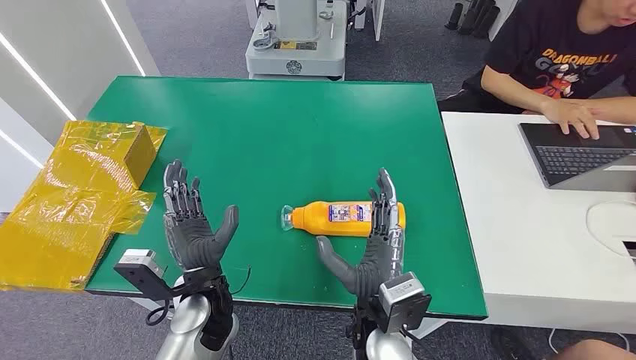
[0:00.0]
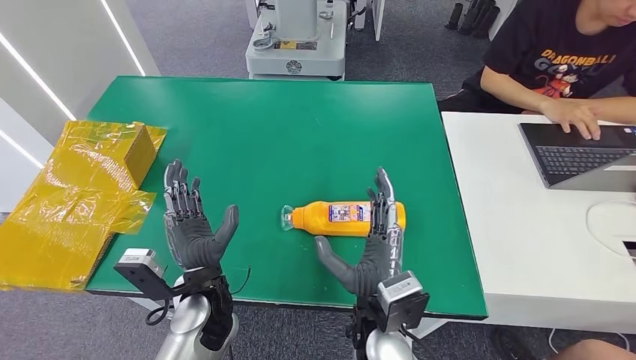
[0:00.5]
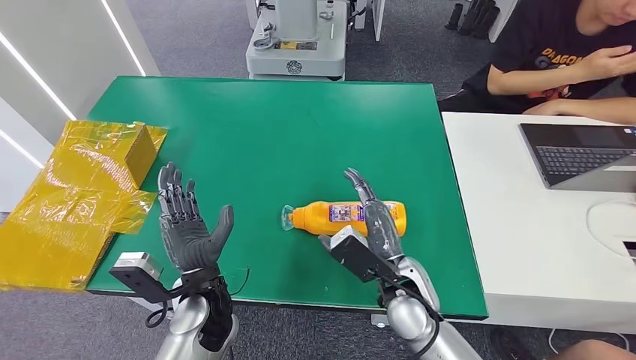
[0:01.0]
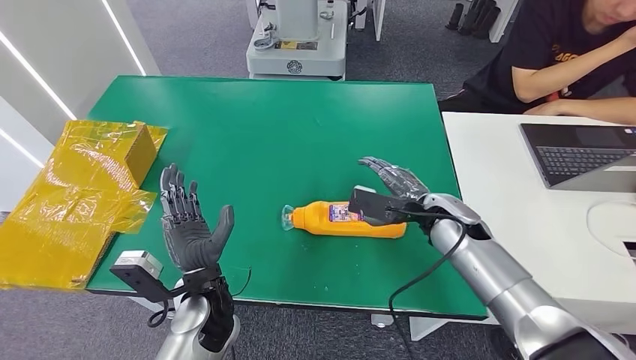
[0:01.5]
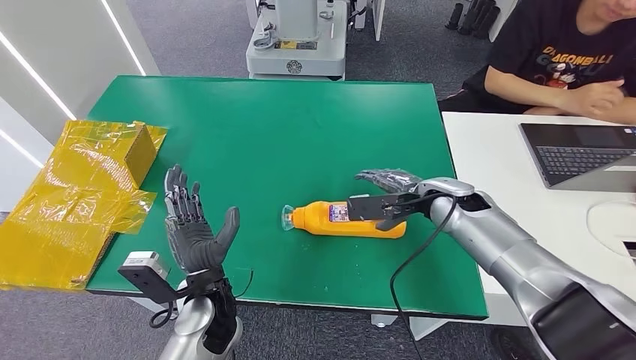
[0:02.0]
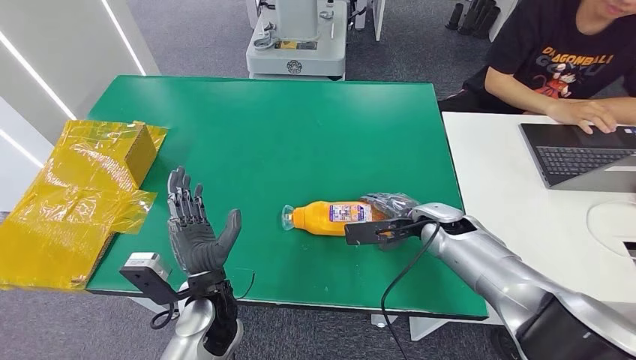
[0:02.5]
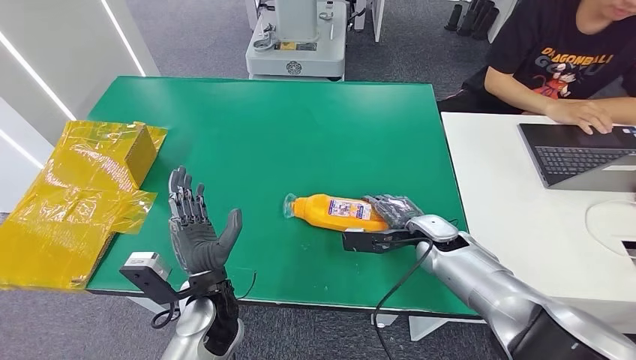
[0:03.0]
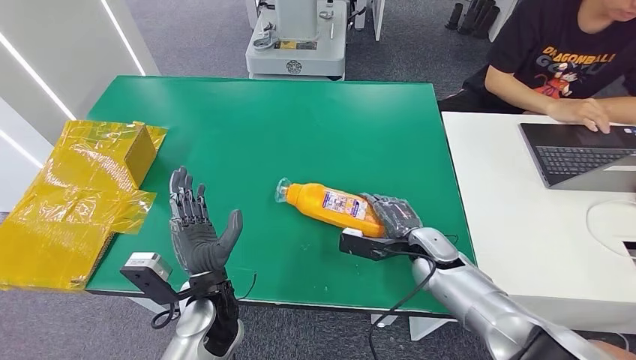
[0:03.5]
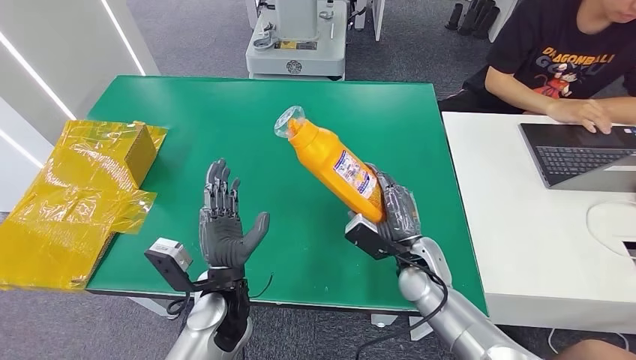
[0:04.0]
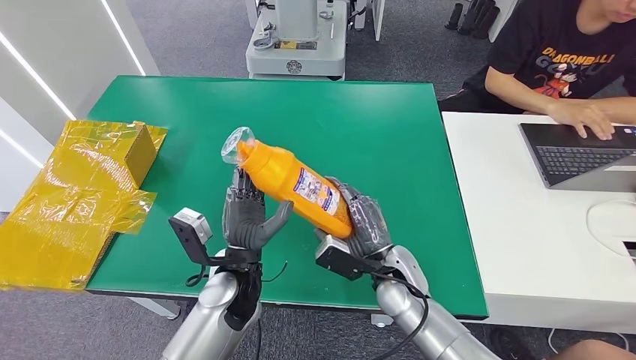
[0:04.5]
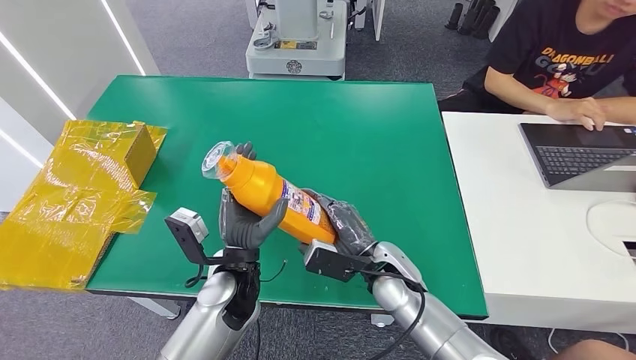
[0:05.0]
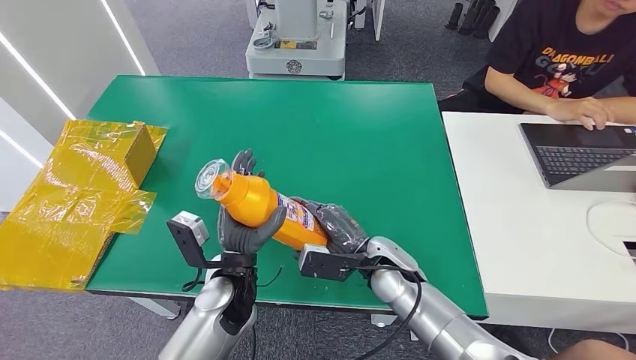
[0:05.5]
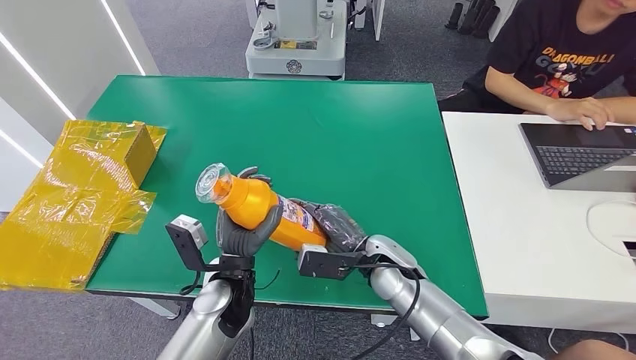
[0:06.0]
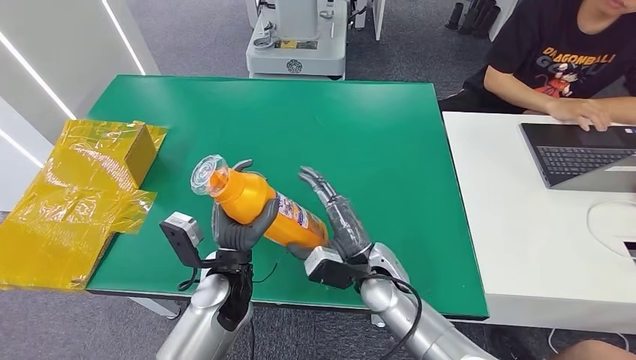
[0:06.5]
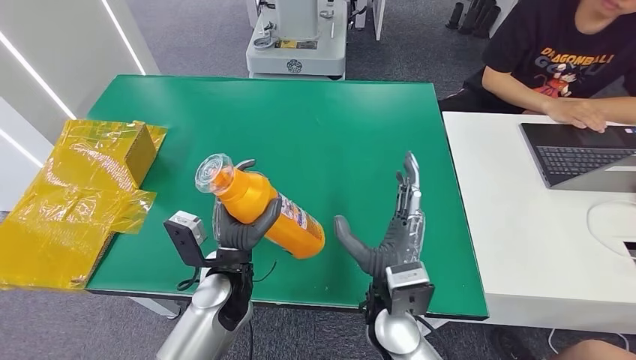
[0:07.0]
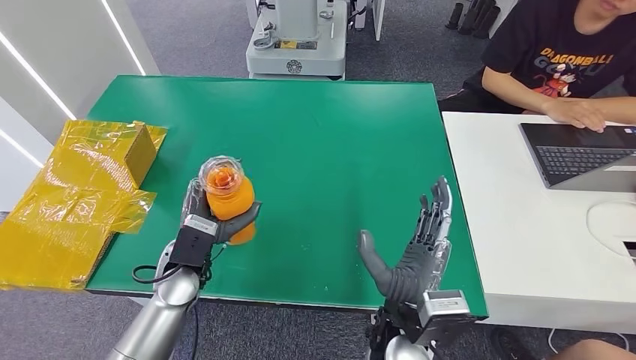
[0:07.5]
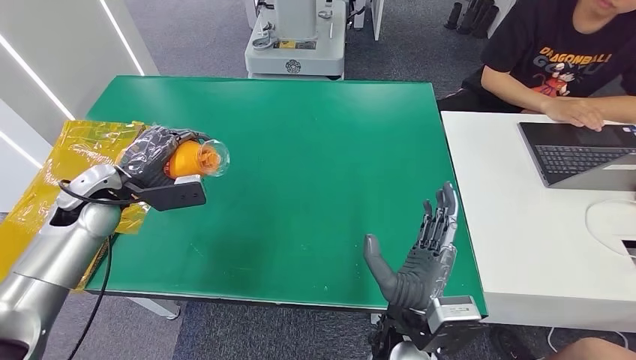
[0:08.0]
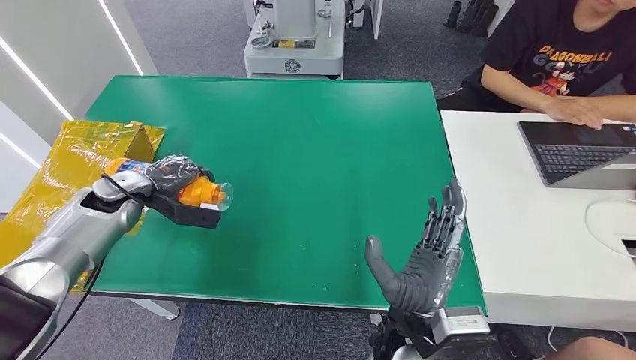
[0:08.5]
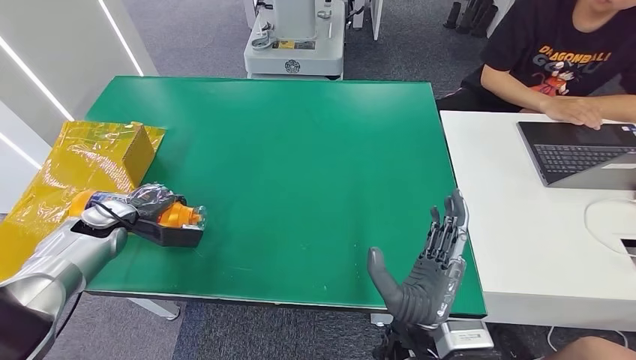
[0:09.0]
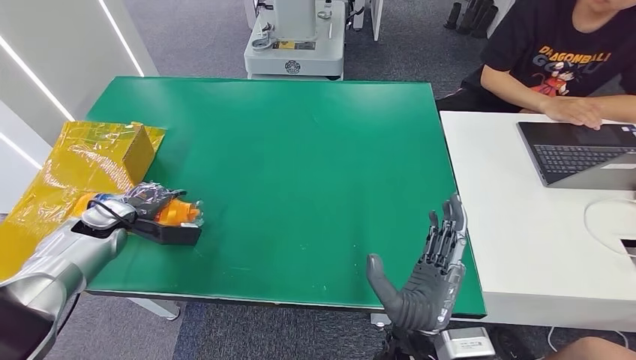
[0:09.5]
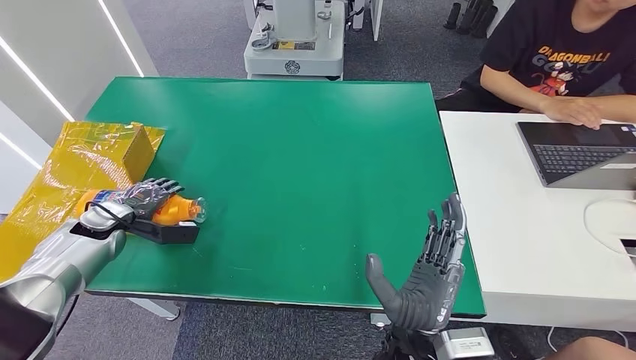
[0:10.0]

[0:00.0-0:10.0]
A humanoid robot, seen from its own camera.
Step, 0:00.0 to 0:04.0: Pick up the bottle from the table.
0:04.0 to 0:06.0: The right hand travels to the left by some 5 cm.
0:08.0 to 0:10.0: The left hand is displaced downward and to the left by some 10 cm.

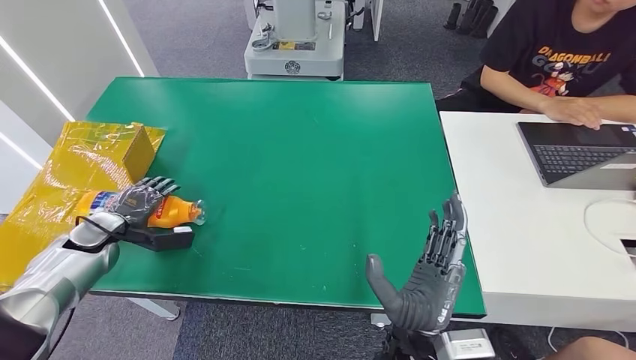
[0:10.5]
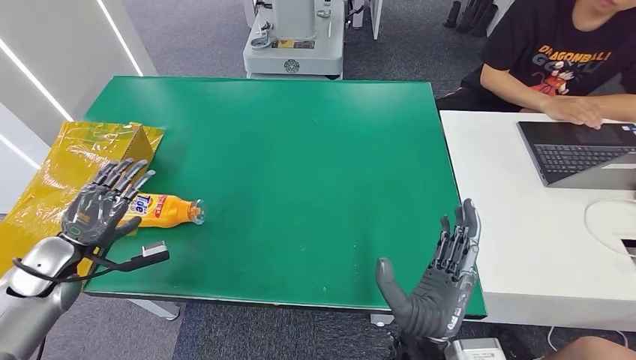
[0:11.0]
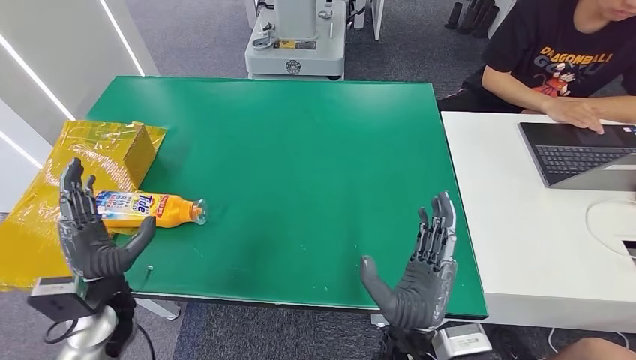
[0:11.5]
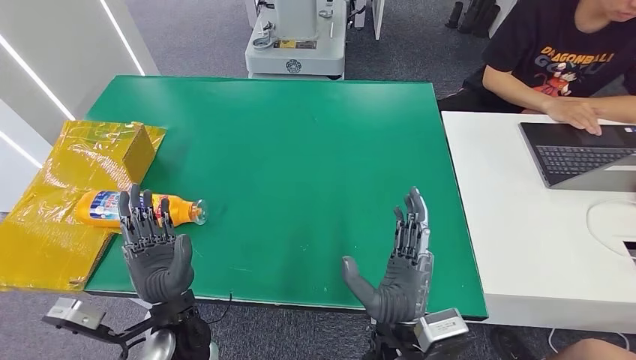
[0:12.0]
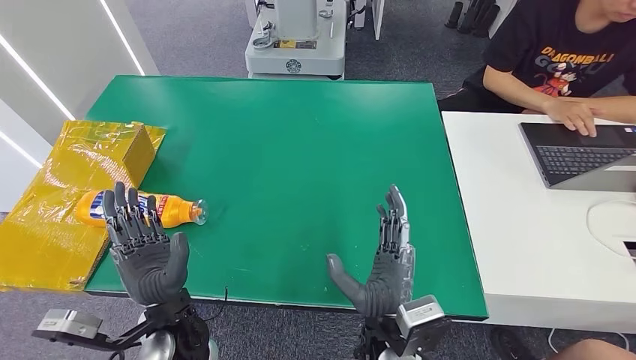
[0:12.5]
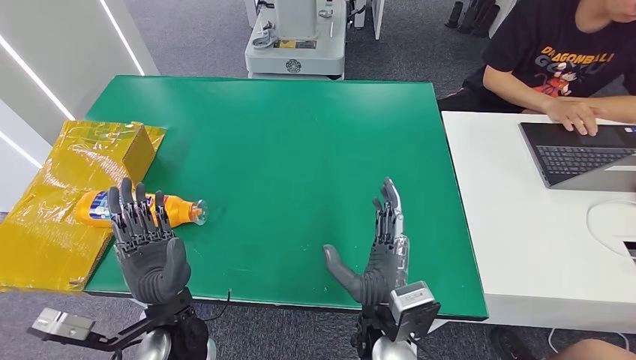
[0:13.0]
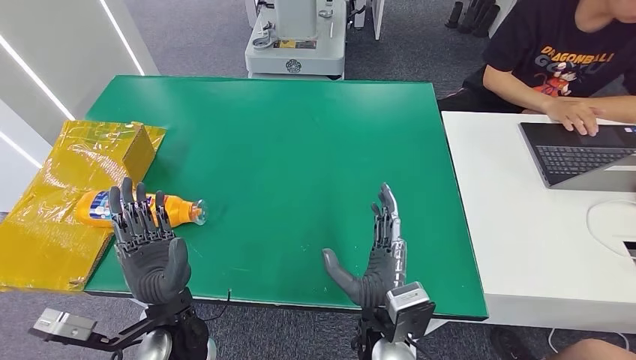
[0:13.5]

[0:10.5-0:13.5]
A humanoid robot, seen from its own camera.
Step, 0:10.5 to 0:13.5: Turn the bottle to the front side.
0:10.5 to 0:12.0: The left hand shifts some 30 cm to the right and backward.
0:12.0 to 0:13.5: The hands move only a little.
